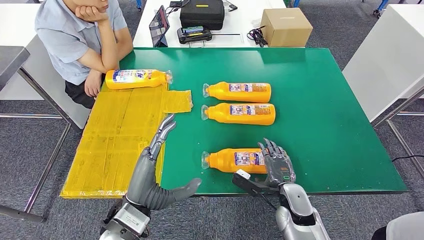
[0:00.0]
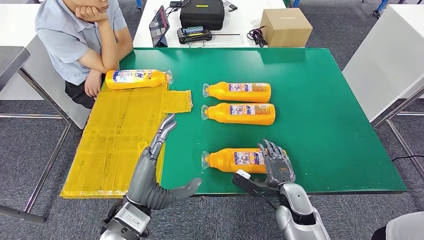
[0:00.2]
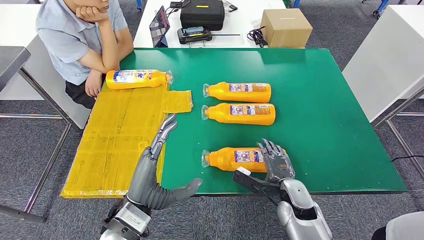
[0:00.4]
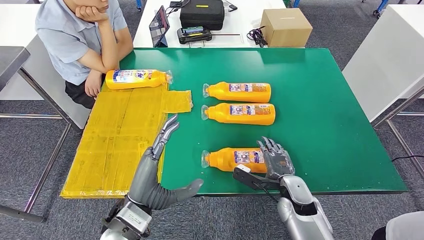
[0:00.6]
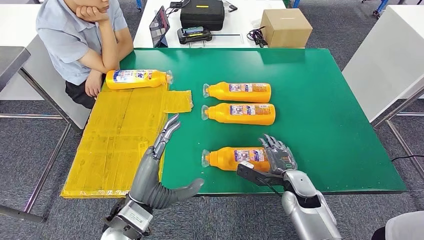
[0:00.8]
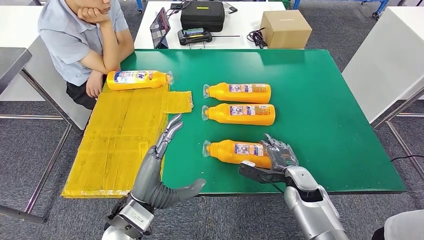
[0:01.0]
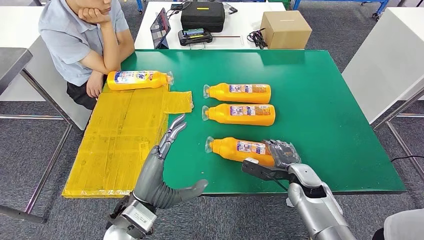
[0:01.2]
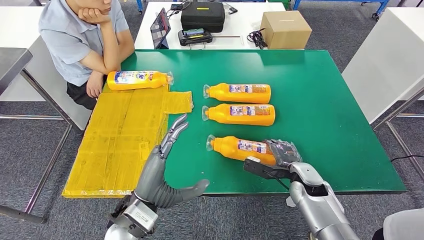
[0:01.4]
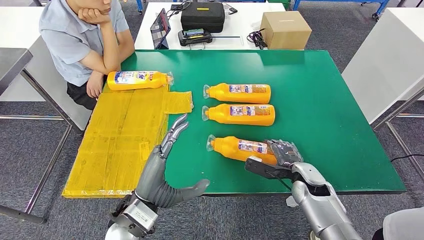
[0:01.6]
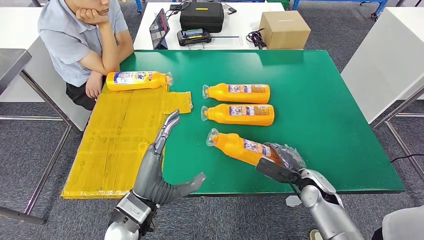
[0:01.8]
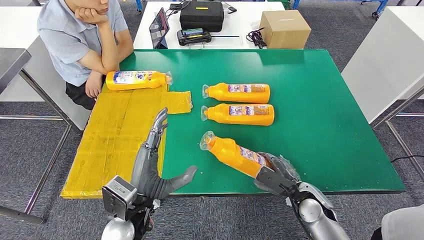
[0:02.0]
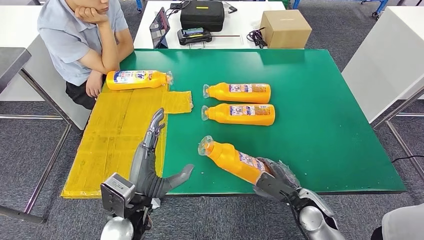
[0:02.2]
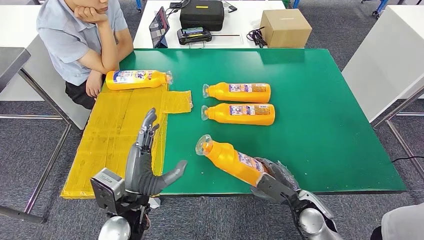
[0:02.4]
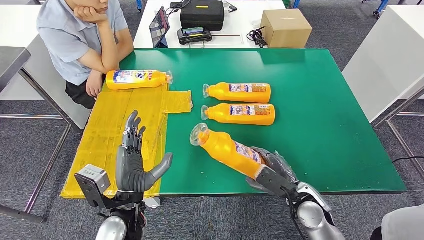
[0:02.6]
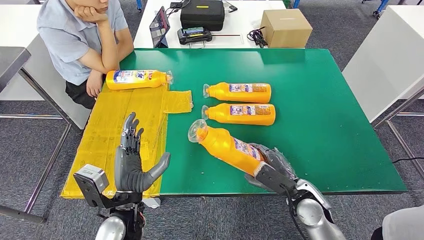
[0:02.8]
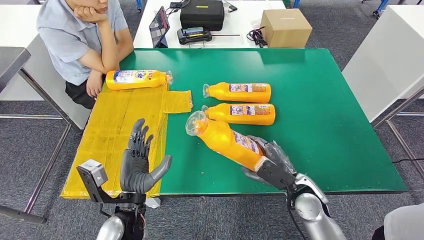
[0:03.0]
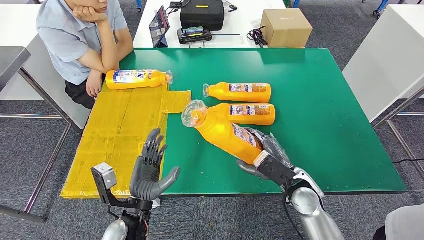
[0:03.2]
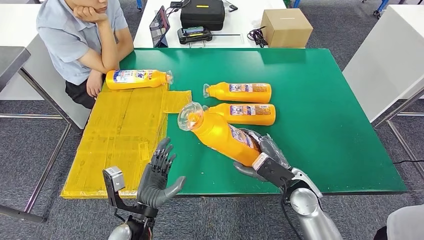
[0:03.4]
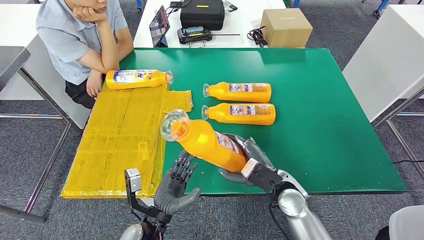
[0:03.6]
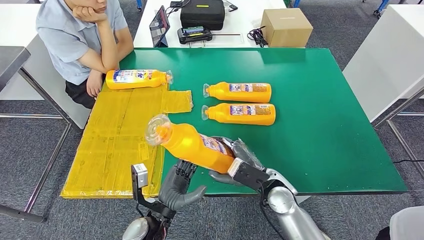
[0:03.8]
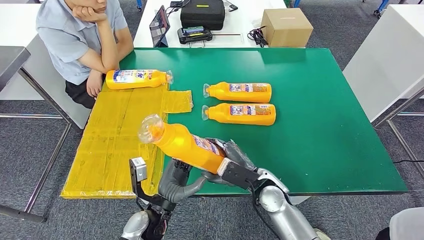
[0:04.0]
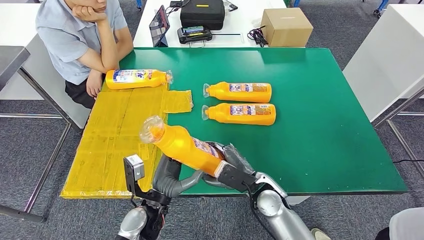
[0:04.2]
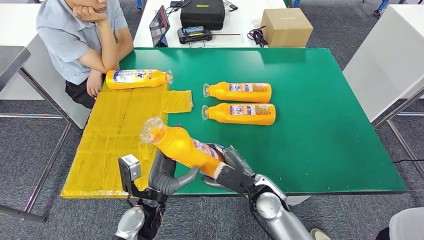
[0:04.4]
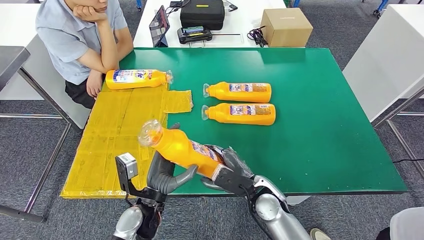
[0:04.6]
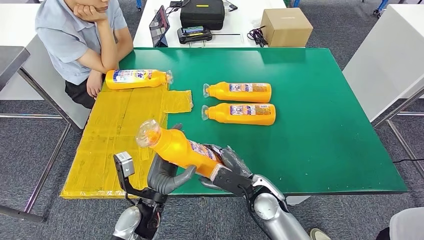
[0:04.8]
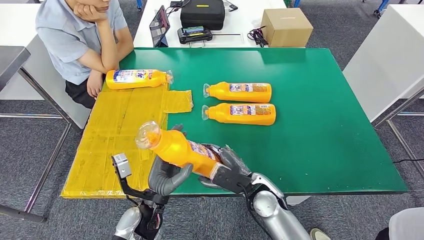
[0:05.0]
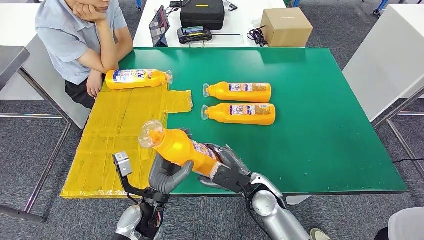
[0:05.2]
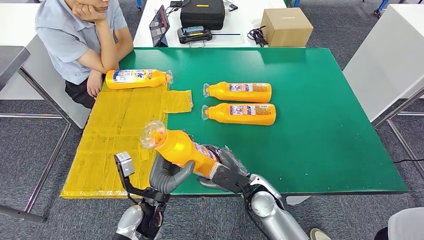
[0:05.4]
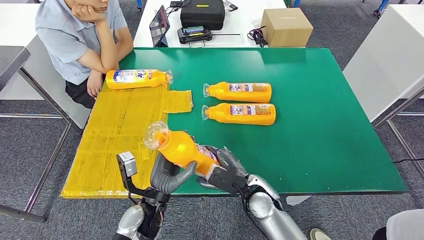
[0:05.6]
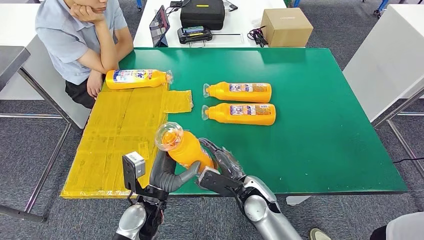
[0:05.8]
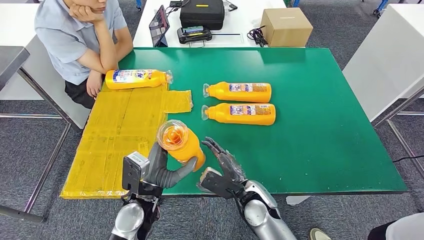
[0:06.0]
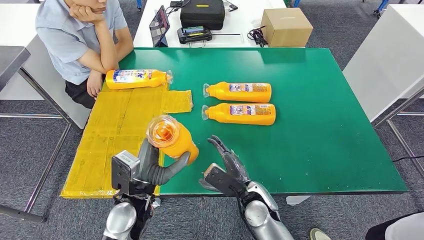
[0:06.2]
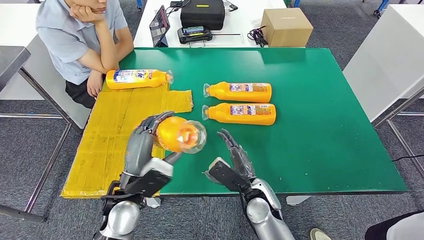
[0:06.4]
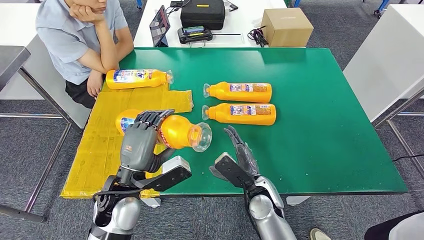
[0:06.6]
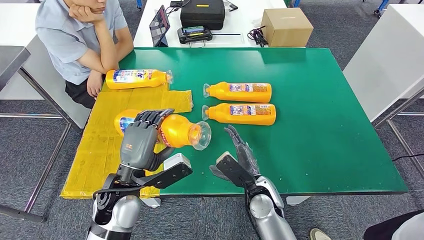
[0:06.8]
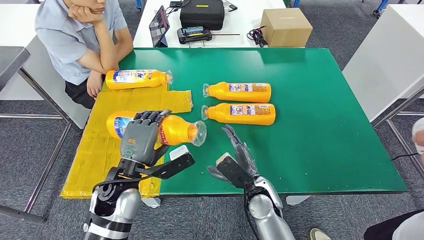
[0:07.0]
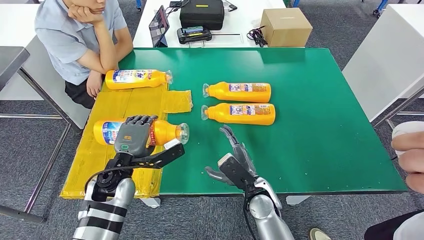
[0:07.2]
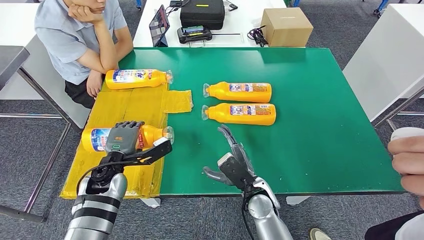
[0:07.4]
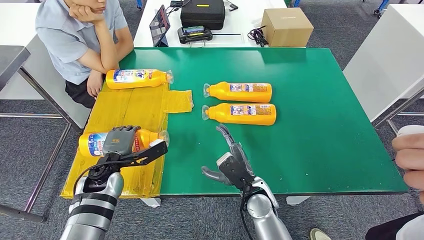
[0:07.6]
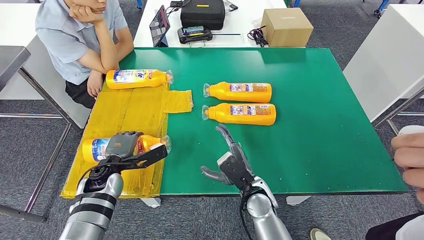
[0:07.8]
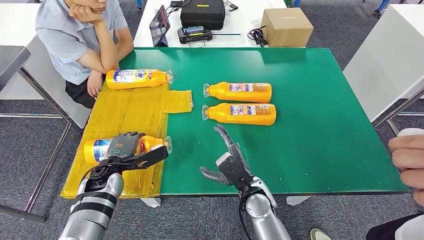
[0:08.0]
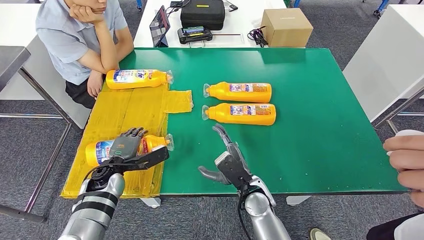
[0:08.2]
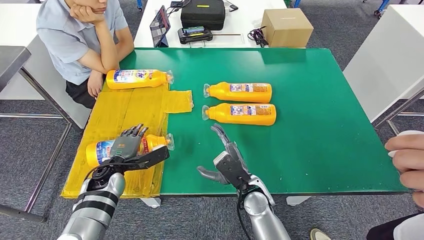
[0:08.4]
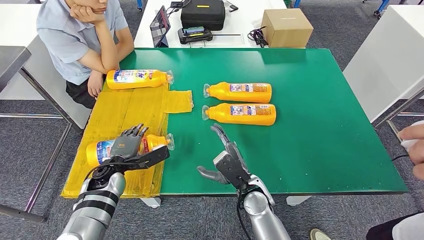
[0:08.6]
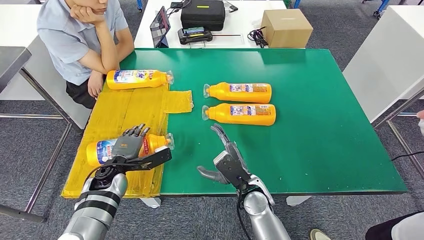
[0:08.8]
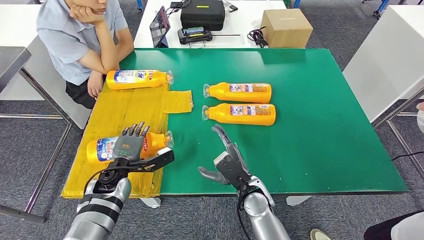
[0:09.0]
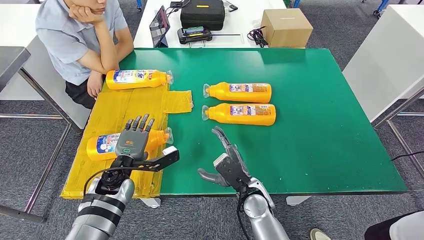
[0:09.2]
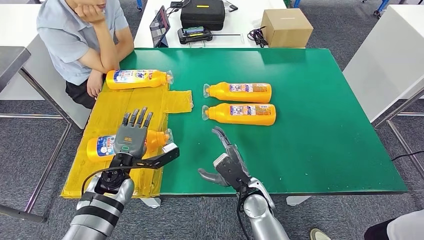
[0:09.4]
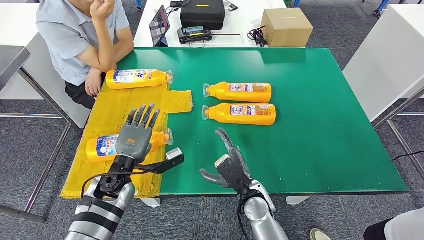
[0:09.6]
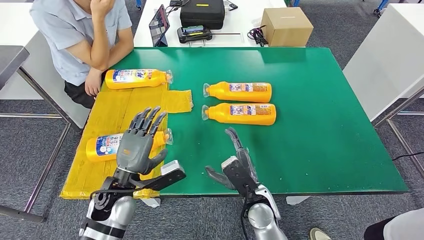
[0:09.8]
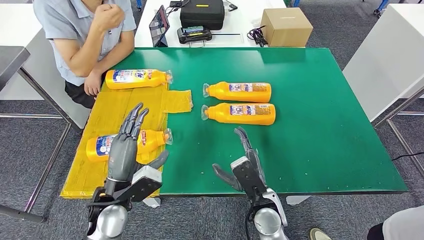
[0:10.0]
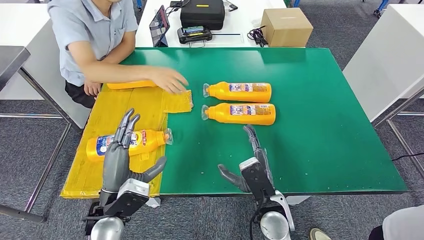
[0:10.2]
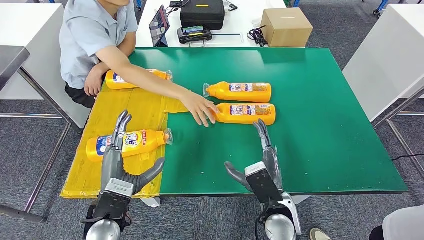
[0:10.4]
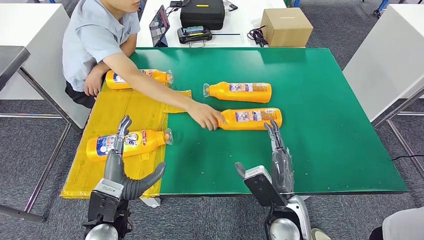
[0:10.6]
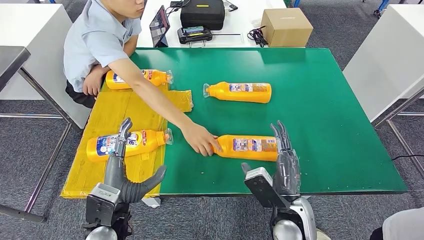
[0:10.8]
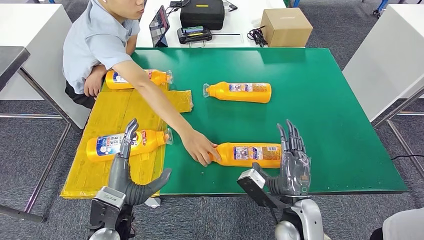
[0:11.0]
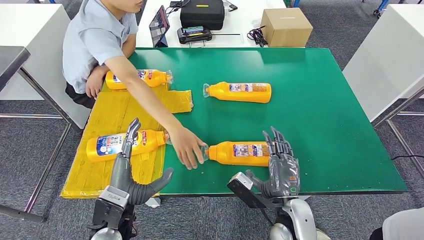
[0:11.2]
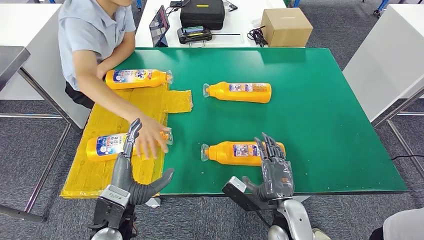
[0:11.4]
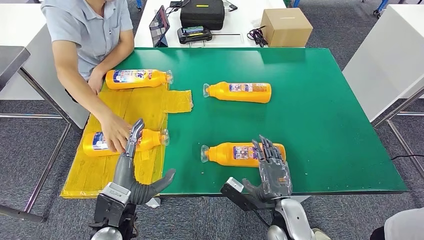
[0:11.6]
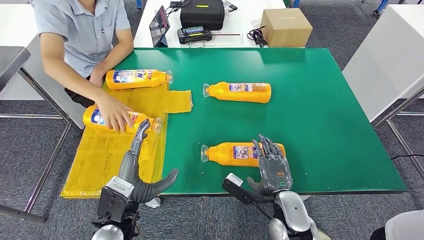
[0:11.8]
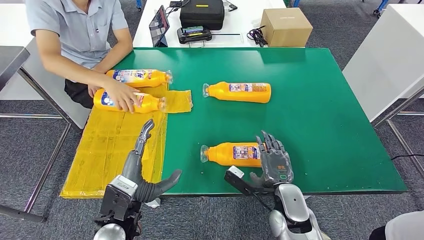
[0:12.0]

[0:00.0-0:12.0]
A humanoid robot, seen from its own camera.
Step, 0:00.0 to 0:03.0: Pick up the fast-moving consumer goods bottle from the table.
Step, 0:03.2 to 0:08.0: Flip the fast-moving consumer goods bottle to the front side.
0:03.0 to 0:04.4: The right hand travels to the left by roughly 10 cm.
0:04.4 to 0:06.0: The hands make only small movements.
0:06.0 to 0:07.6: The left hand is displaced to the left and forward by about 15 cm.
0:07.6 to 0:09.0: The hands stay close to where they were, moving slightly.

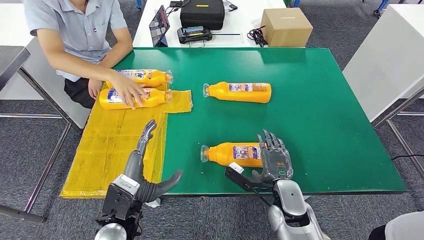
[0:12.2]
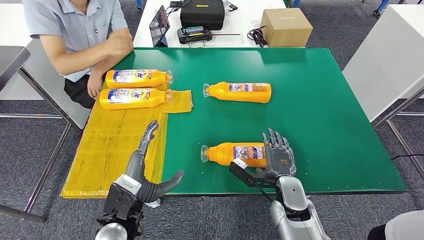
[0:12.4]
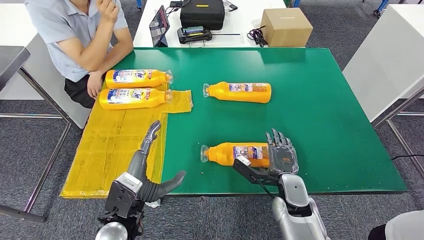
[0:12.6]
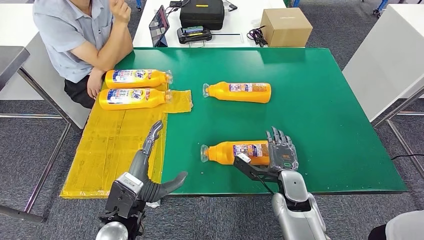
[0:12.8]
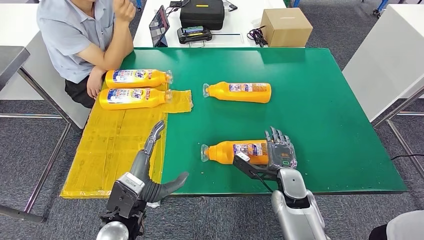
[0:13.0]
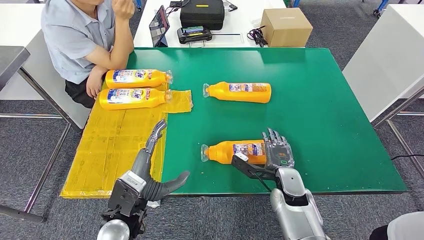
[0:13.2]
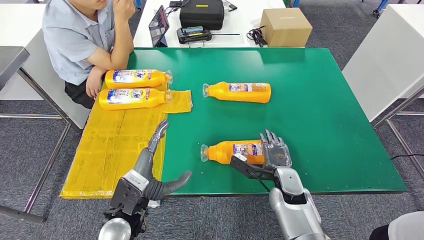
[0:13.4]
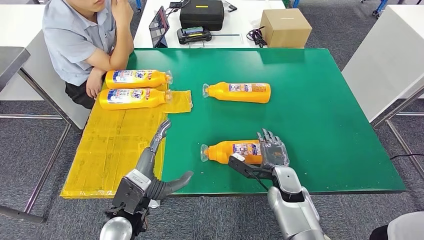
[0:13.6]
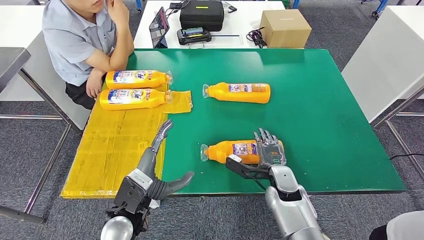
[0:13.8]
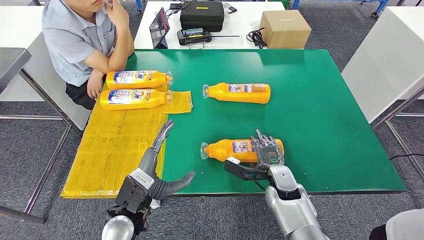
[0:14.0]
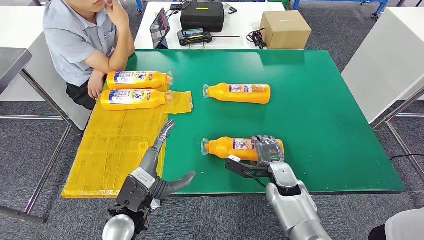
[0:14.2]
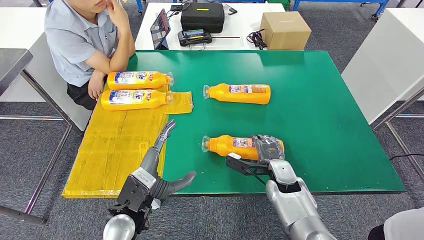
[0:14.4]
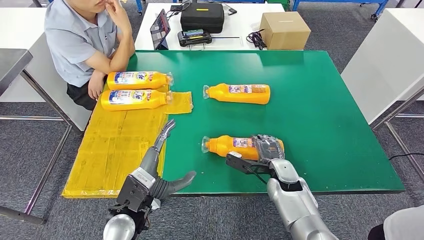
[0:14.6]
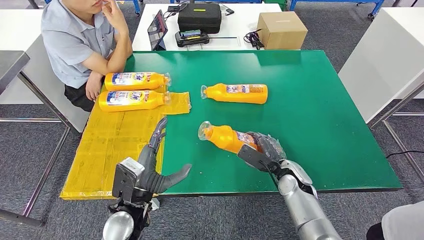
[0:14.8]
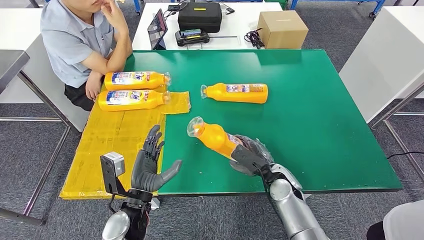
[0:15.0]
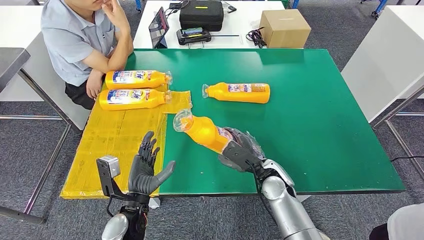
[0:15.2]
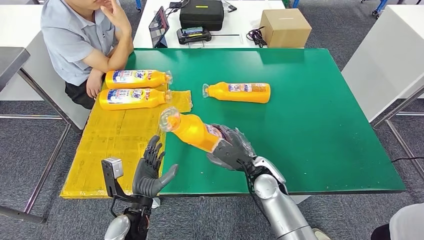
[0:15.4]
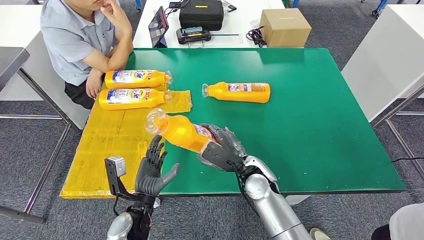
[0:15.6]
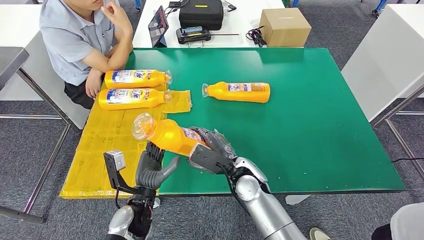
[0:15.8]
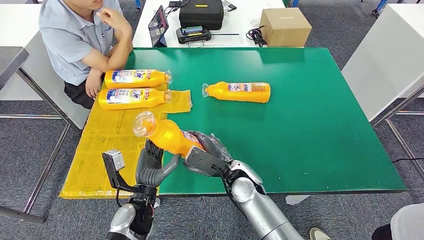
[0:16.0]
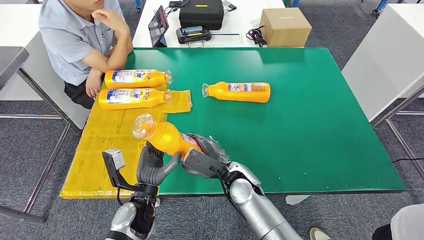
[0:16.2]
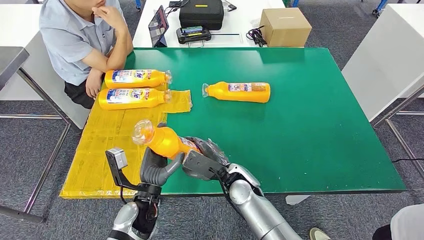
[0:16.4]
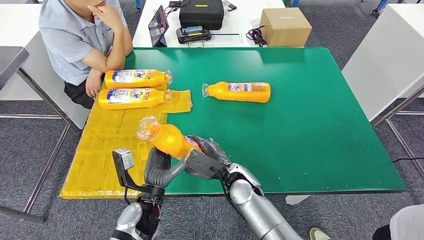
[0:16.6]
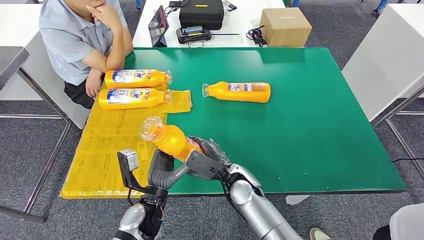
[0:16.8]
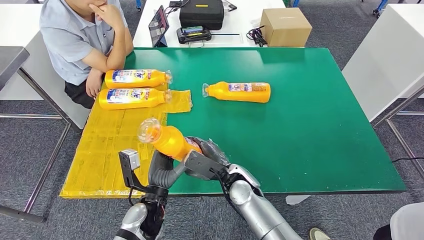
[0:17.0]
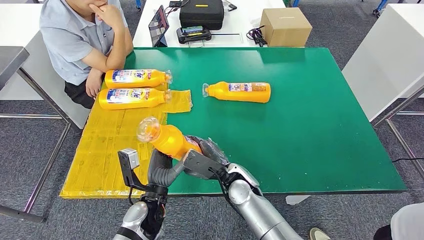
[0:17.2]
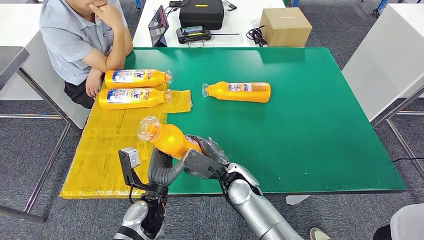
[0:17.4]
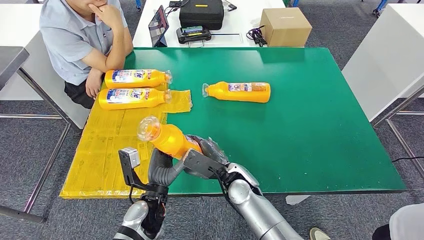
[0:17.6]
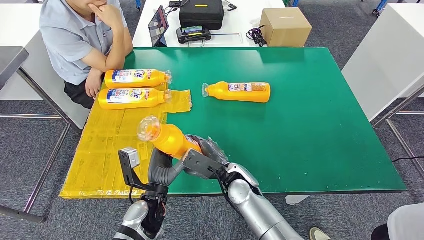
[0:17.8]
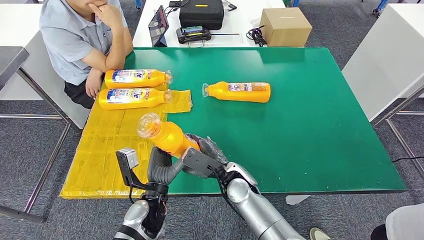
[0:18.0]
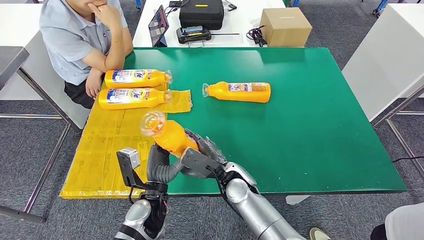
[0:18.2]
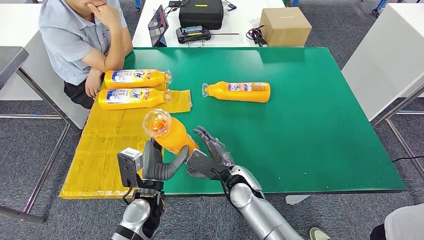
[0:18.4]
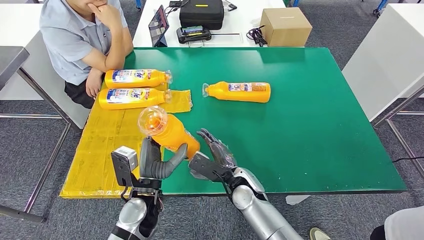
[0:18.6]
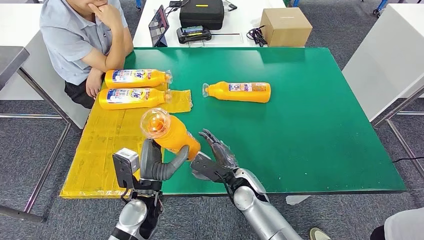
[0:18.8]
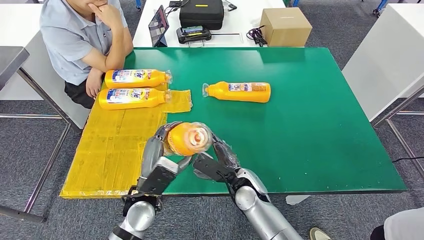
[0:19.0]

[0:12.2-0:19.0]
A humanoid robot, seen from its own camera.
Step, 0:12.2 to 0:16.0: Pick up the fast-moving consumer goods bottle from the table.
0:12.2 to 0:13.6: The right hand heads forward, covering about 5 cm.
0:16.2 to 0:17.6: The hands move only a little.
